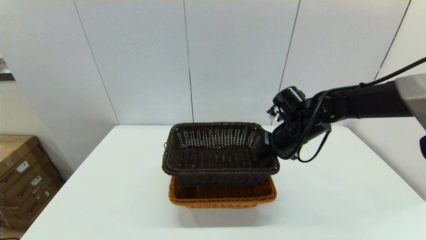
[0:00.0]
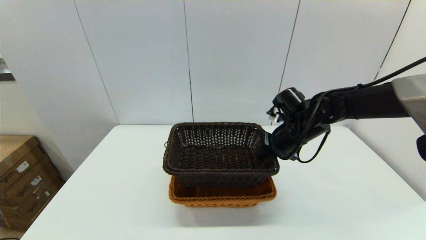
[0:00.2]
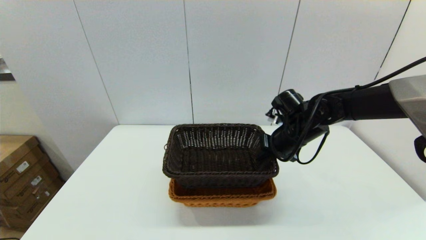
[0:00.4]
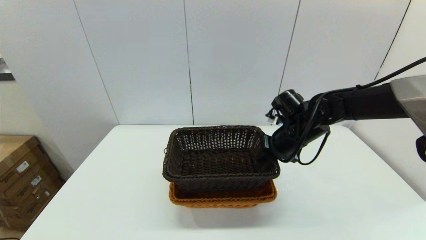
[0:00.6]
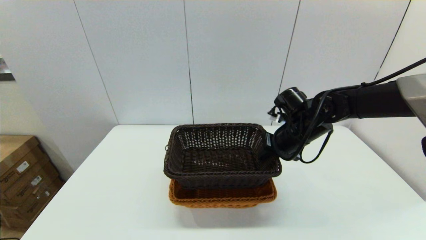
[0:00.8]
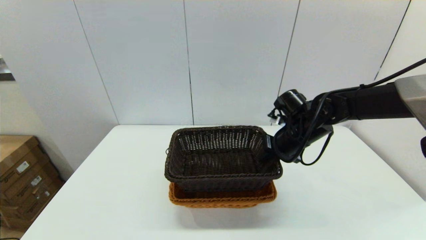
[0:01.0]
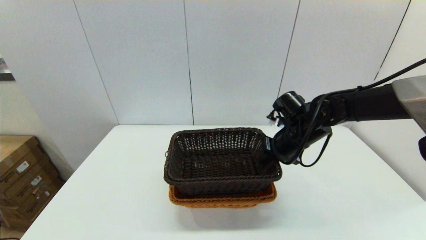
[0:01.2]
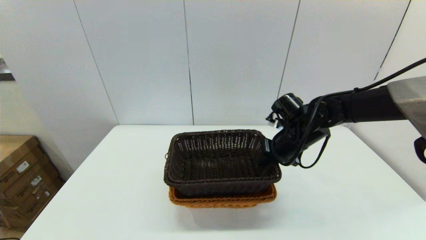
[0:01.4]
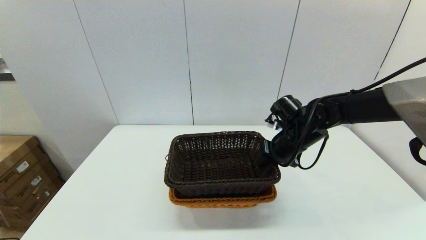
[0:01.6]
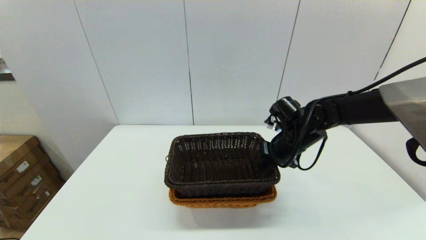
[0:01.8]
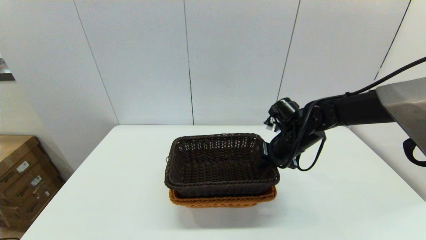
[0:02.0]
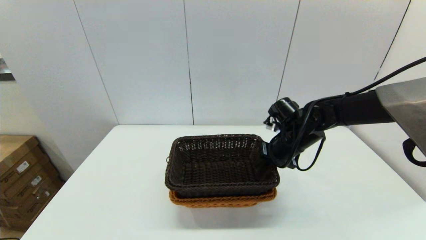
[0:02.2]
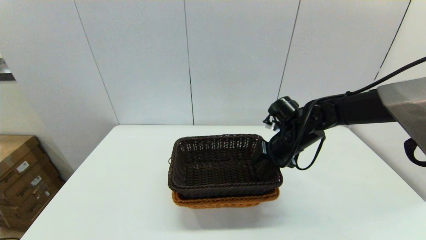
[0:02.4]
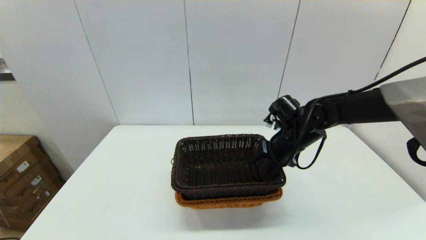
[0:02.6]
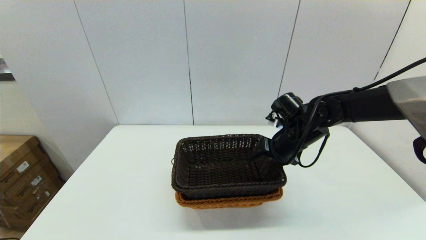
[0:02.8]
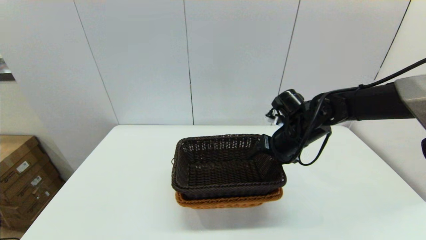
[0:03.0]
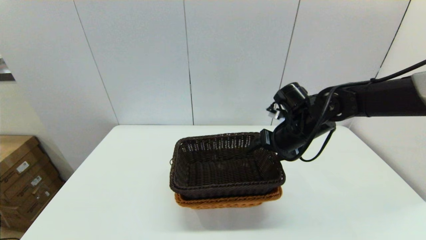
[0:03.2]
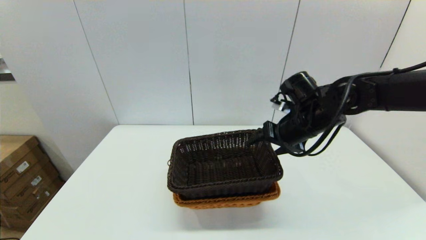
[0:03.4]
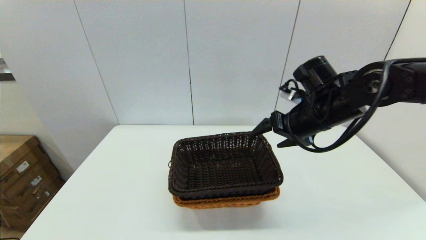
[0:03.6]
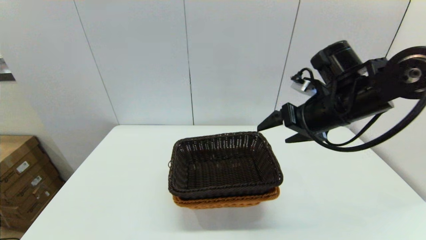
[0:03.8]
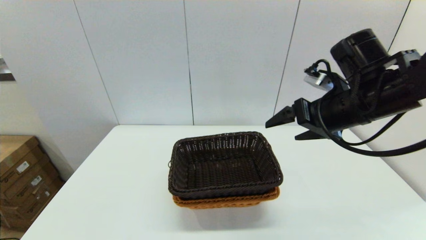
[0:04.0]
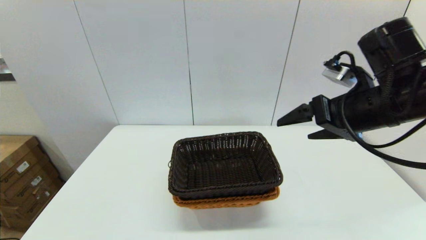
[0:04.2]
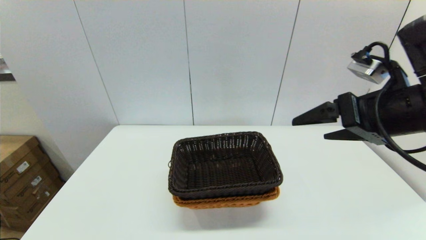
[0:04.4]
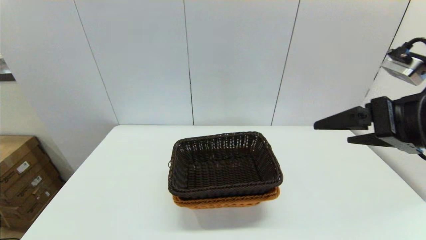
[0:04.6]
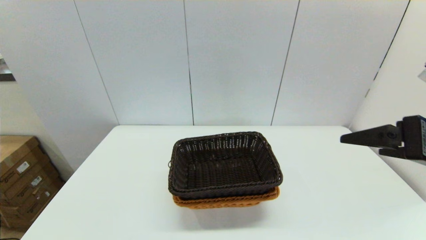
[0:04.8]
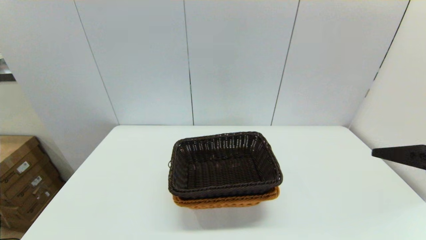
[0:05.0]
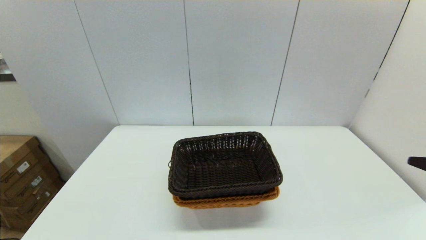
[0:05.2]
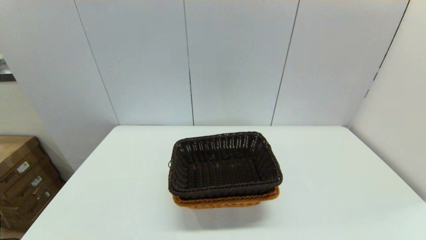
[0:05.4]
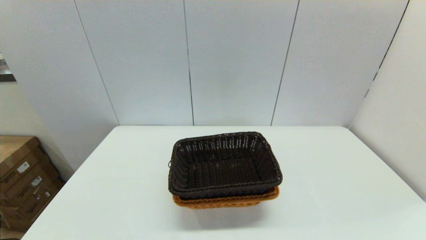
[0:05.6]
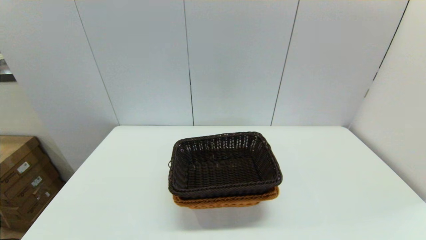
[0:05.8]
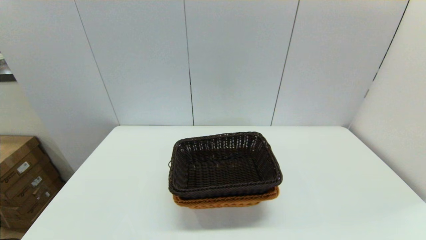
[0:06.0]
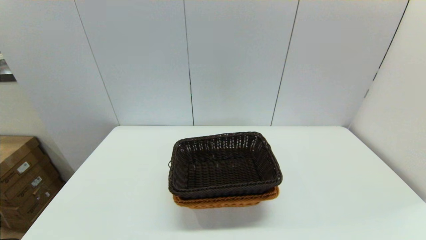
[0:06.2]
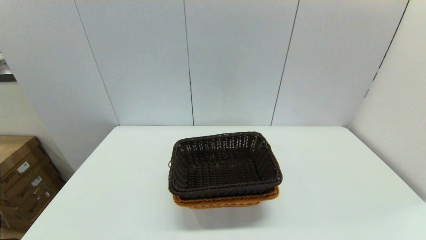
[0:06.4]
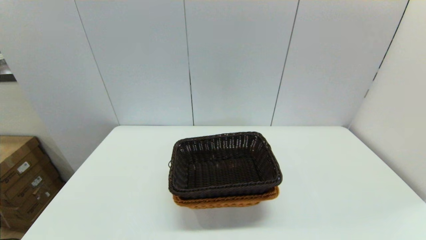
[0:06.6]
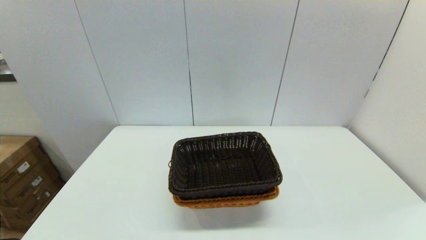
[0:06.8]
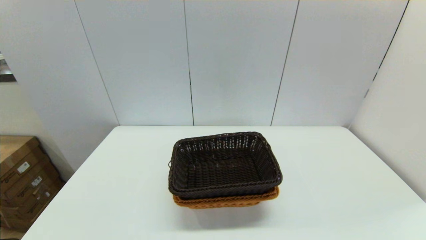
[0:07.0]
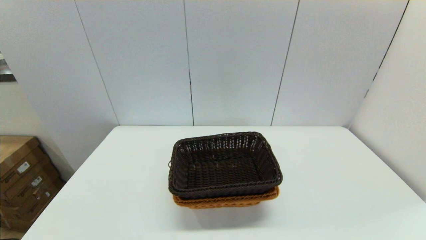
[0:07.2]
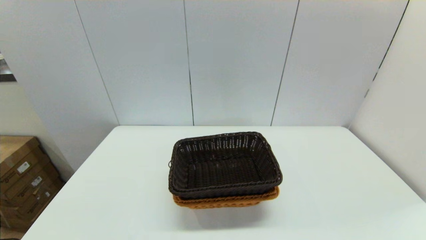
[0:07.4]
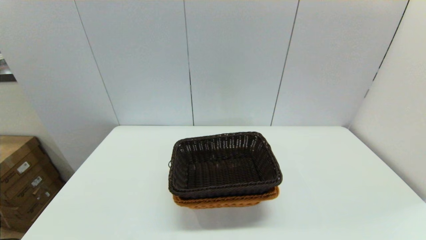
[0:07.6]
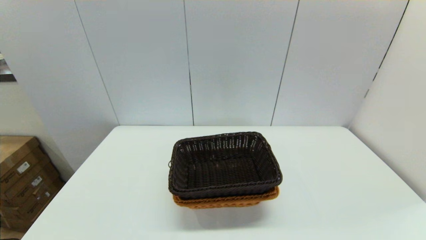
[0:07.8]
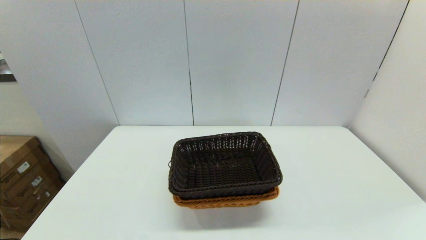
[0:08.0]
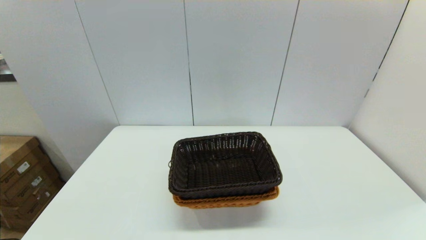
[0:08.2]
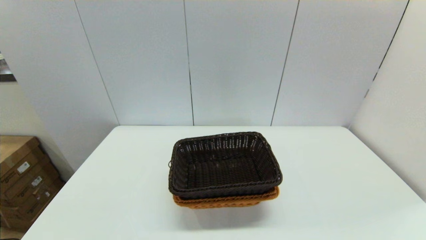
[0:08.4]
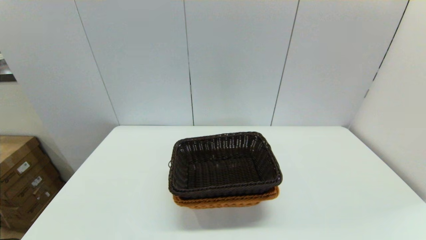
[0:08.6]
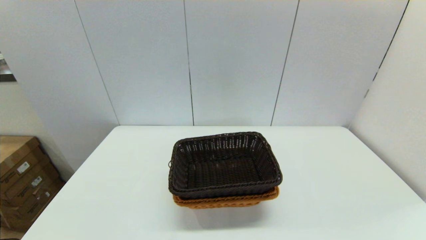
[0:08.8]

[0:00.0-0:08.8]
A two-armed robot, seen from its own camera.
Task of the whole recording: stack a basket on top of another basket.
Step, 0:00.0 to 0:02.8: Place the dark basket into the light color basket with the right gripper.
0:00.0 to 0:01.4: There are only small adjustments of the grippers.
0:01.4 to 0:03.0: The right gripper opens its fingers.
0:03.0 to 0:04.4: The right gripper shifts about 20 cm backward and upward.
0:04.4 to 0:05.8: The right gripper heads backward and to the right, covering some 25 cm.

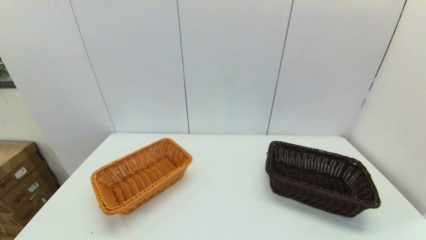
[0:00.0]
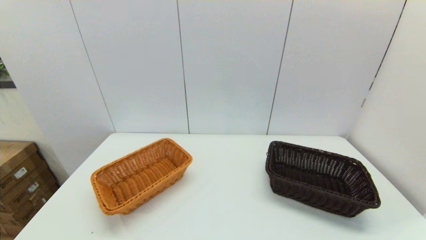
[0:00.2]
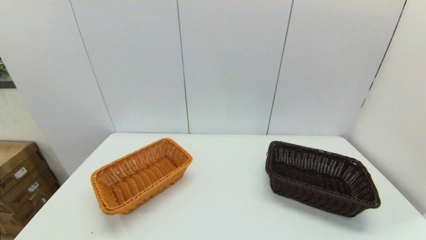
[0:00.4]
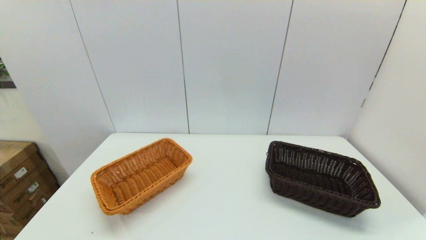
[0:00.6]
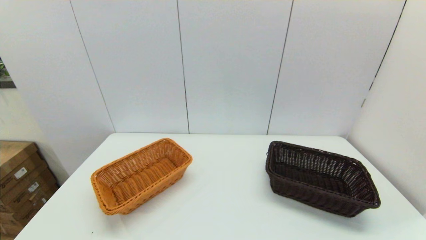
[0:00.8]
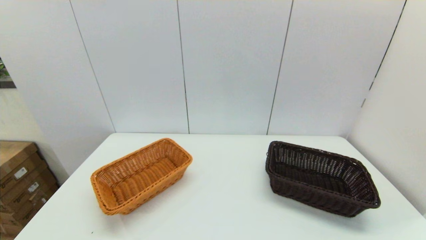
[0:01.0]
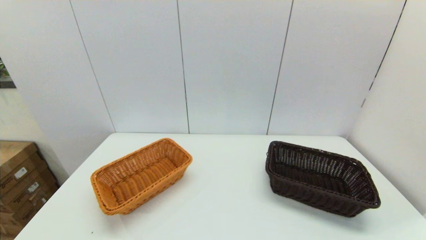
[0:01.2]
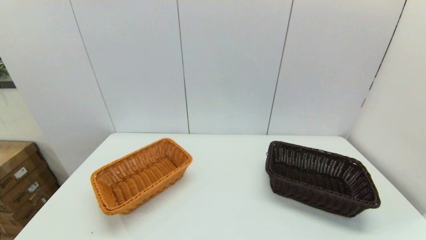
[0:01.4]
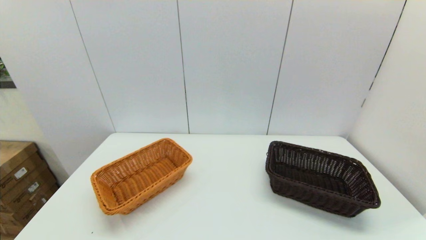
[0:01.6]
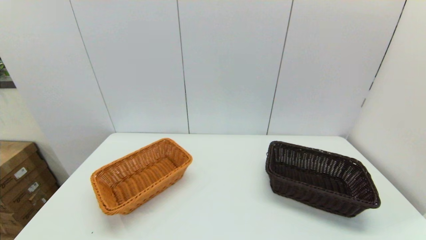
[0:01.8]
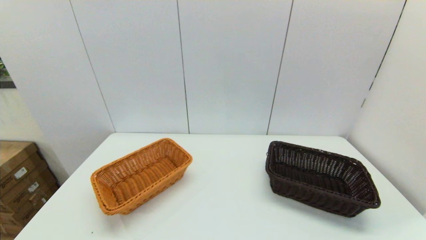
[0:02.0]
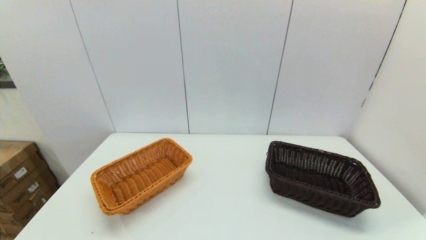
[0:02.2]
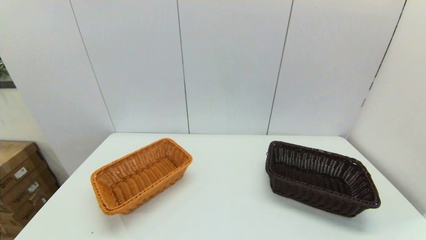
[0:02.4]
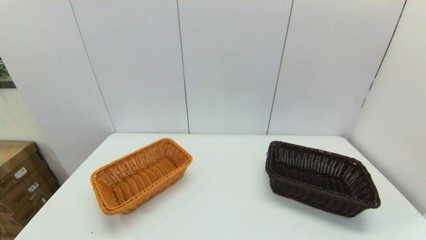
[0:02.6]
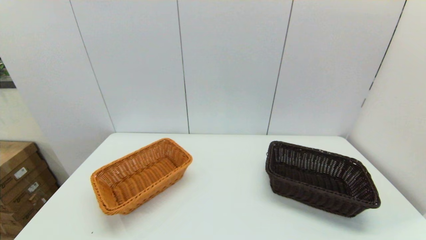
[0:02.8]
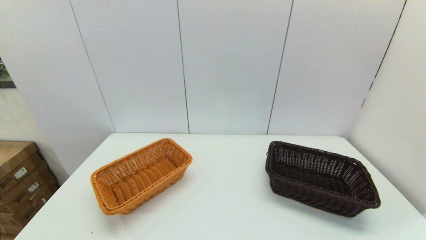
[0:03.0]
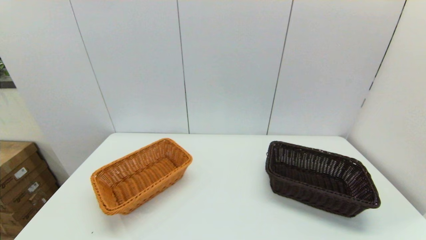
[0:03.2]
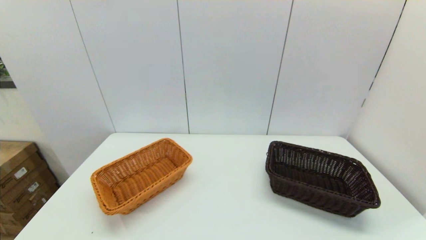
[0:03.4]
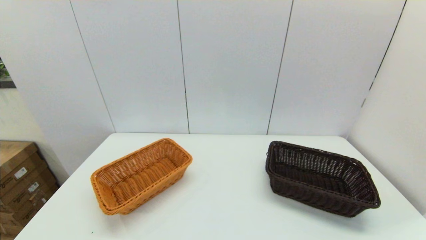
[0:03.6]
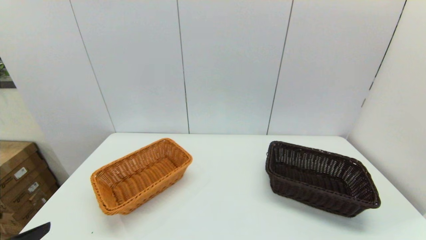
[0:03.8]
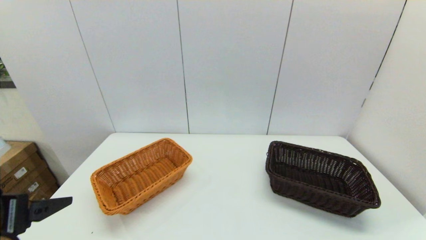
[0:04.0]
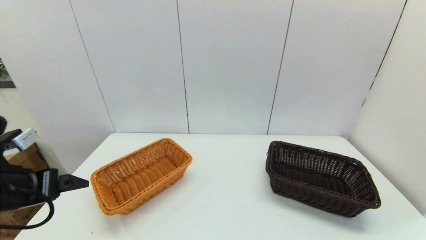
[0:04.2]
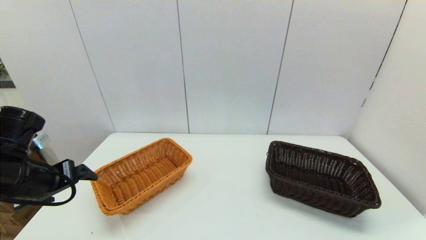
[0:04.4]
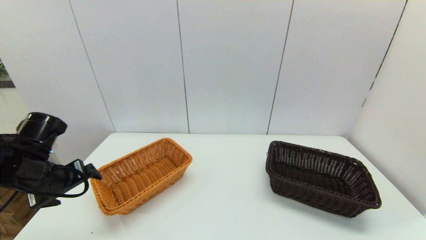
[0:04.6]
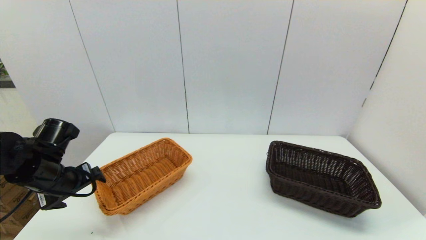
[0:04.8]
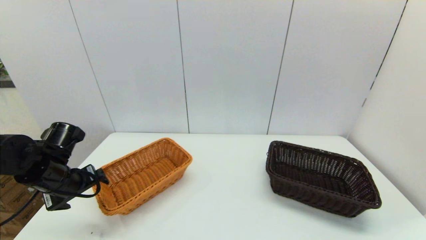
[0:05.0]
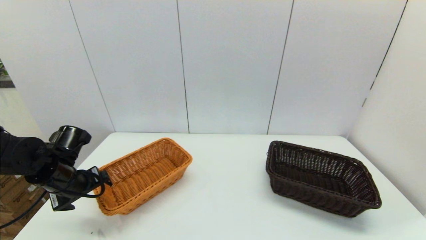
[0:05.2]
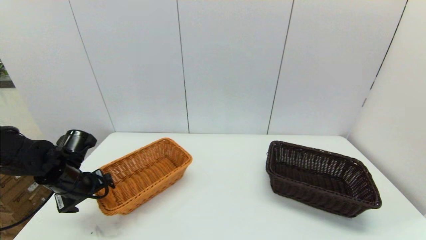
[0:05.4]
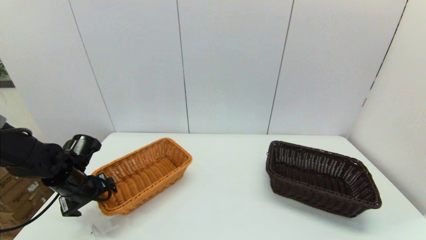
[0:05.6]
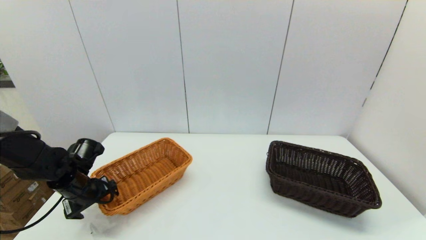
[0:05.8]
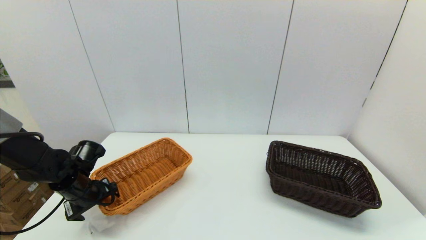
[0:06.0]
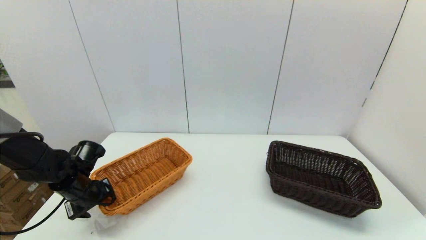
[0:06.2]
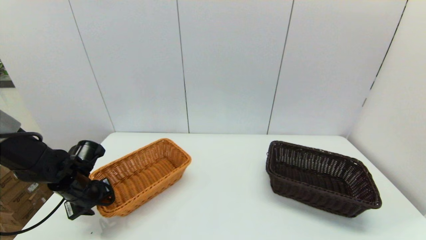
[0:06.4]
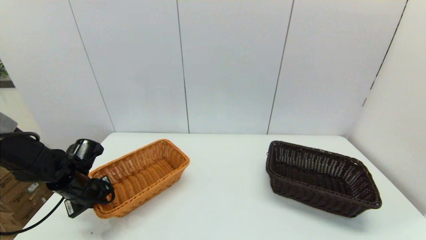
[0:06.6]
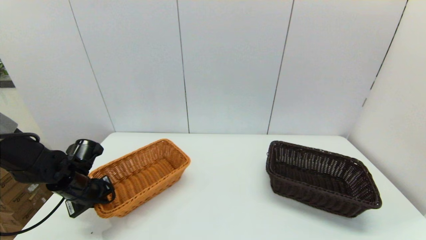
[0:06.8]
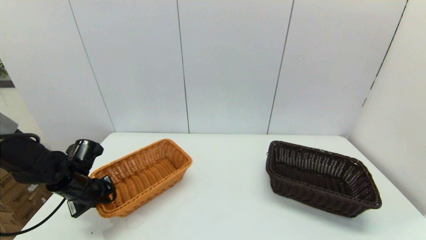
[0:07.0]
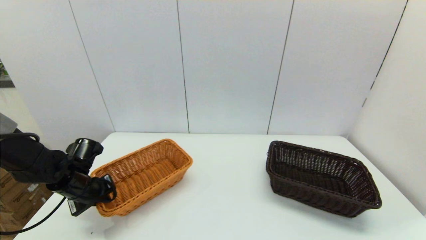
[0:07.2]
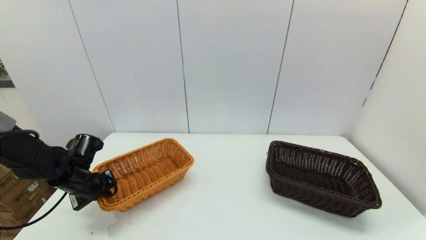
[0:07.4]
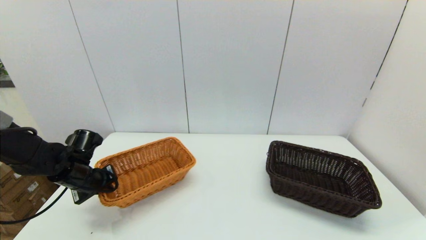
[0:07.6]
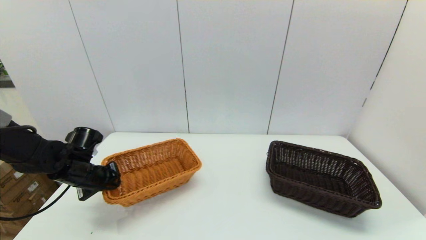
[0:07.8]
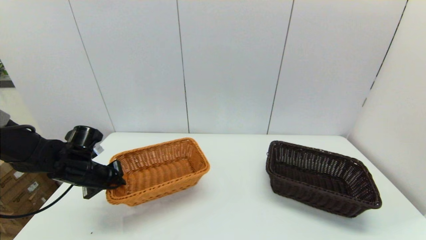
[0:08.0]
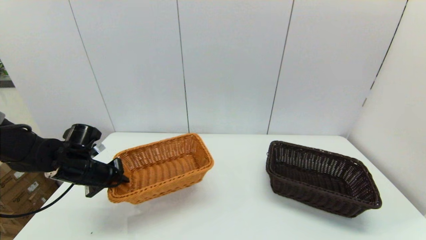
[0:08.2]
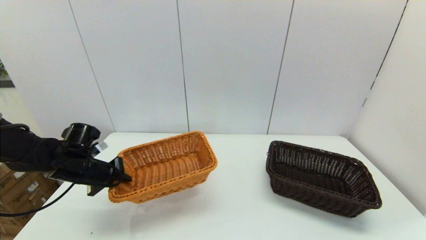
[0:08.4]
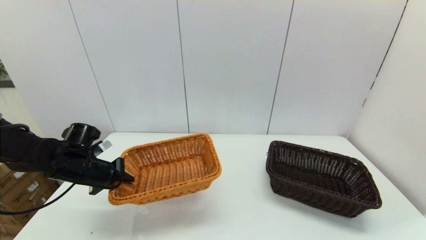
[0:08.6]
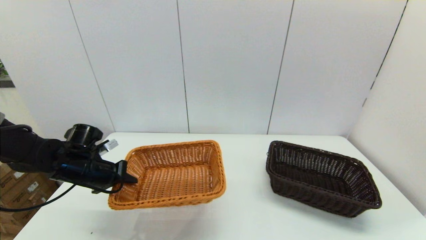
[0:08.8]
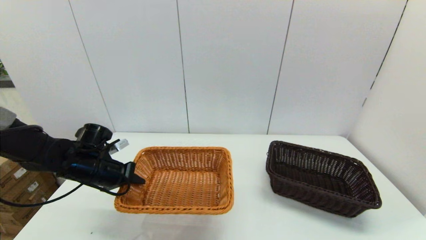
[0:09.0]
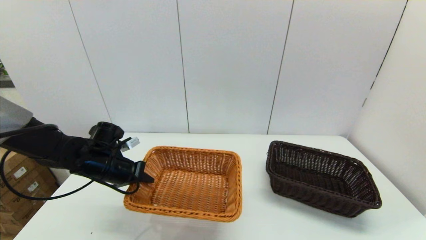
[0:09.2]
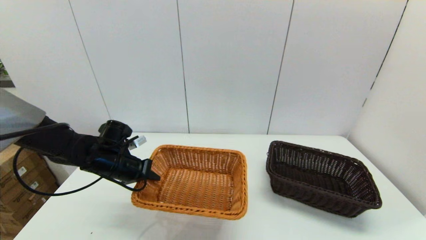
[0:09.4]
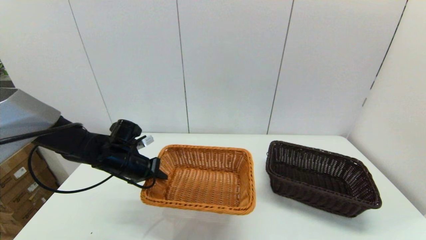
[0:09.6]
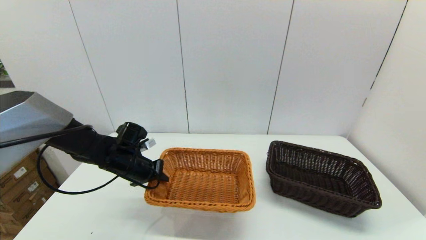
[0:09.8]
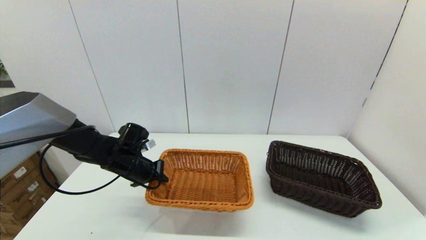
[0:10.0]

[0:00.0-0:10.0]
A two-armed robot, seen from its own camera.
Task of the whole recording: stack a basket on top of another basket.
Step, 0:03.4 to 0:08.2: Grasp the light basket with the left gripper.
0:01.4 to 0:02.8: Both grippers stay put.
0:02.8 to 0:04.2: The left gripper travels forward and upward by approximately 25 cm.
0:04.2 to 0:05.8: The left gripper heads downward and forward, covering approximately 20 cm.
0:05.8 to 0:07.2: The left gripper closes its fingers.
0:08.6 to 0:10.0: The left gripper moves to the right, roughly 10 cm.
